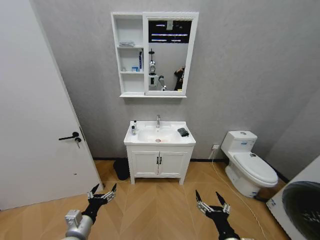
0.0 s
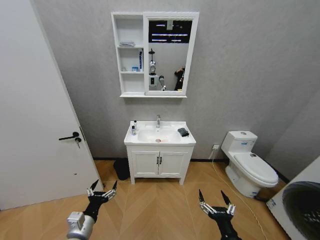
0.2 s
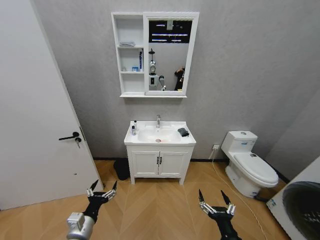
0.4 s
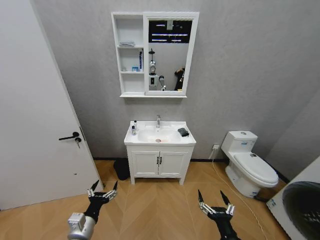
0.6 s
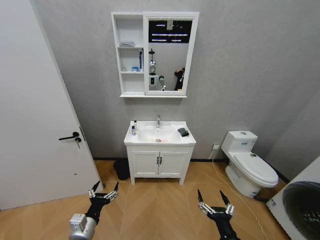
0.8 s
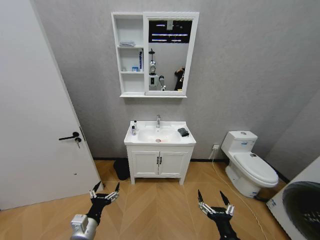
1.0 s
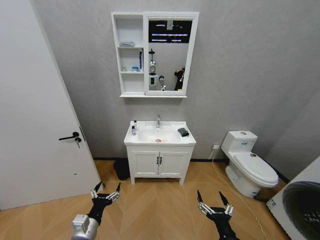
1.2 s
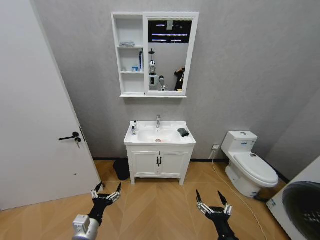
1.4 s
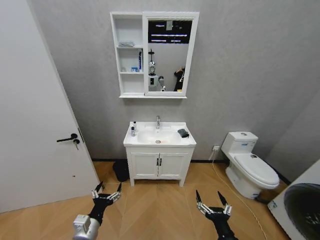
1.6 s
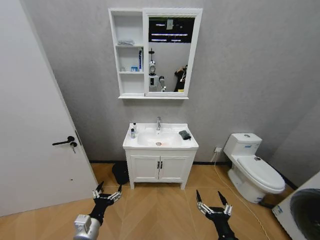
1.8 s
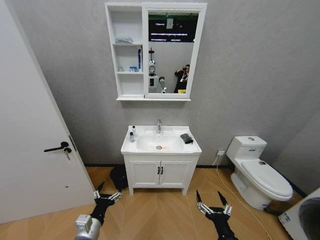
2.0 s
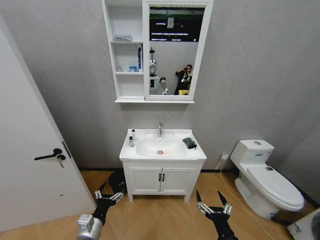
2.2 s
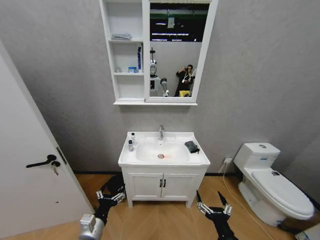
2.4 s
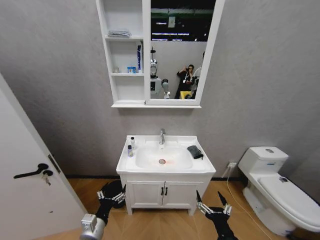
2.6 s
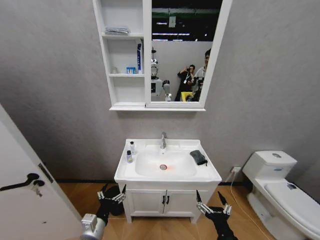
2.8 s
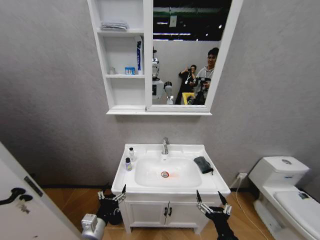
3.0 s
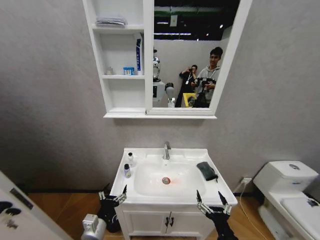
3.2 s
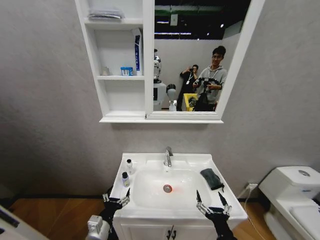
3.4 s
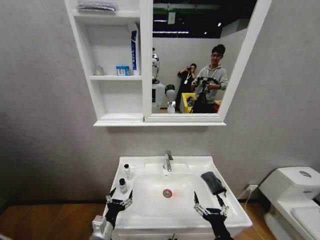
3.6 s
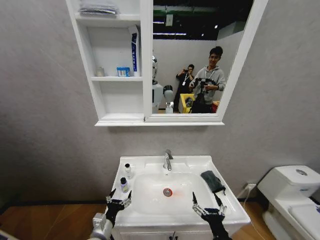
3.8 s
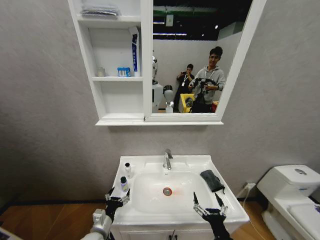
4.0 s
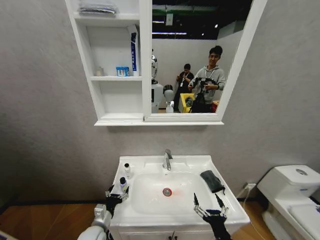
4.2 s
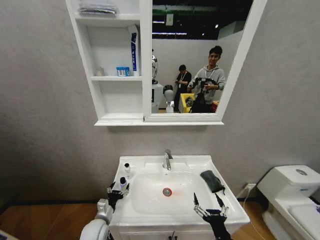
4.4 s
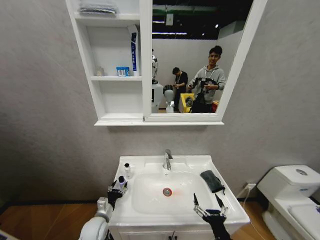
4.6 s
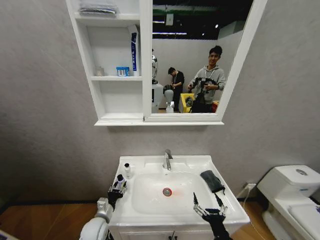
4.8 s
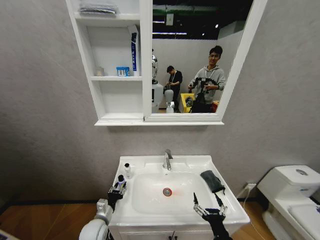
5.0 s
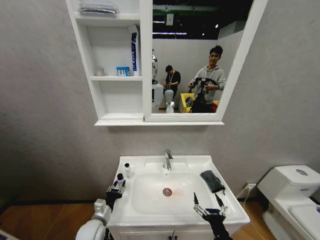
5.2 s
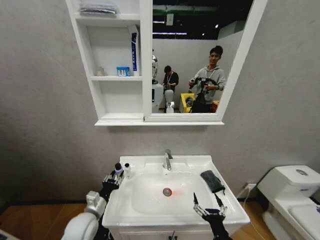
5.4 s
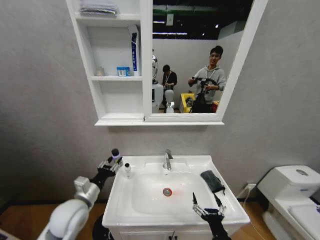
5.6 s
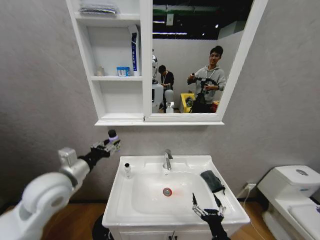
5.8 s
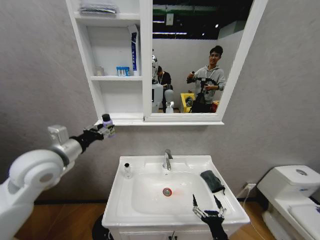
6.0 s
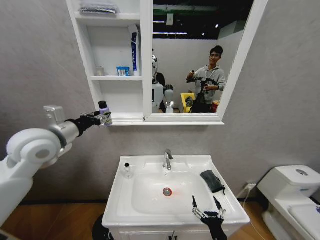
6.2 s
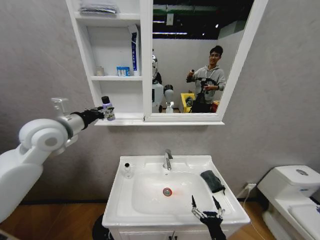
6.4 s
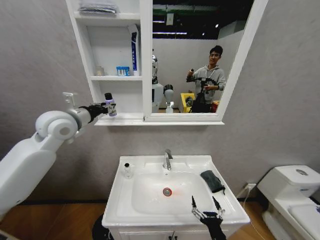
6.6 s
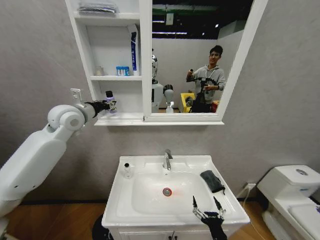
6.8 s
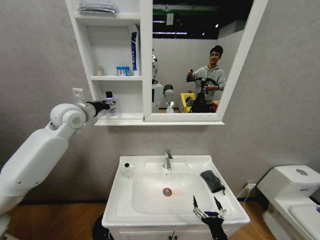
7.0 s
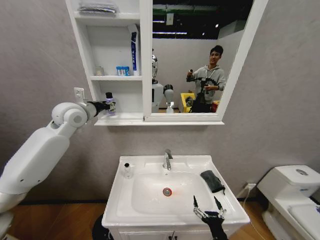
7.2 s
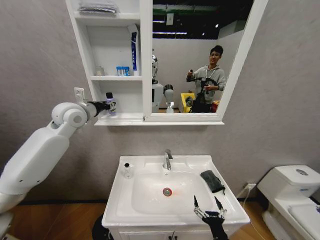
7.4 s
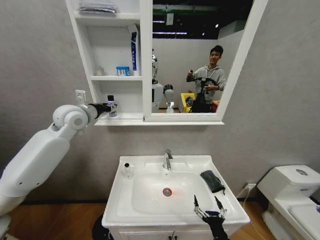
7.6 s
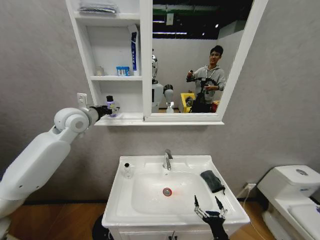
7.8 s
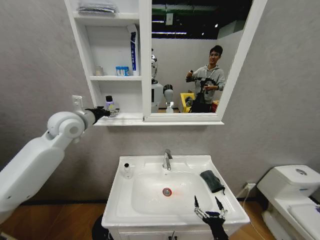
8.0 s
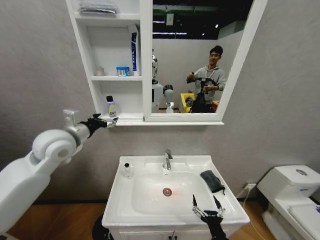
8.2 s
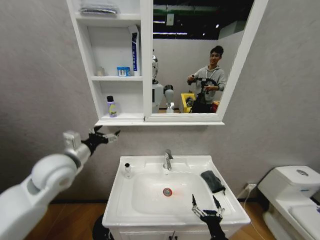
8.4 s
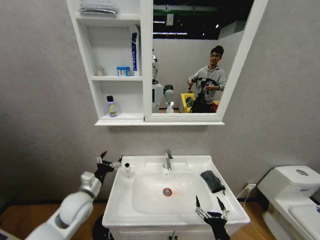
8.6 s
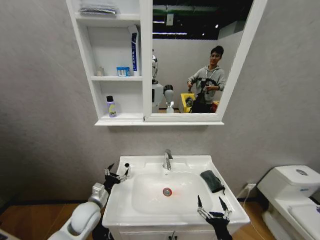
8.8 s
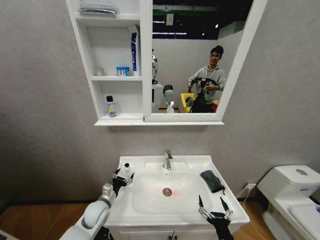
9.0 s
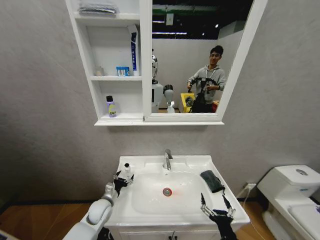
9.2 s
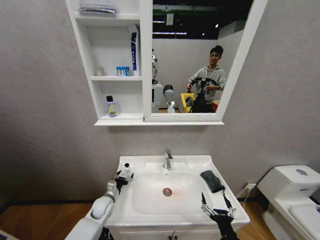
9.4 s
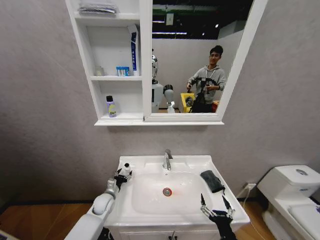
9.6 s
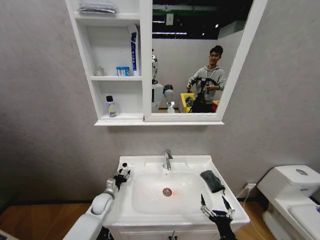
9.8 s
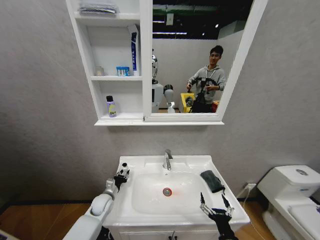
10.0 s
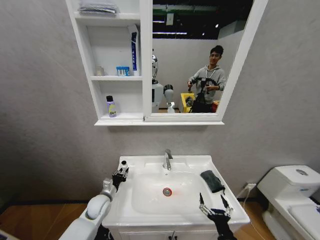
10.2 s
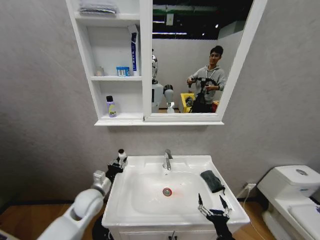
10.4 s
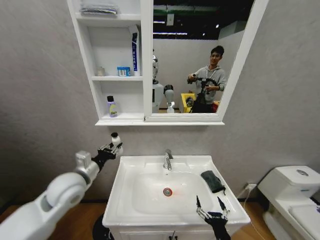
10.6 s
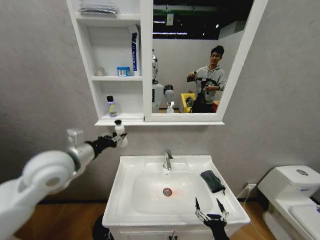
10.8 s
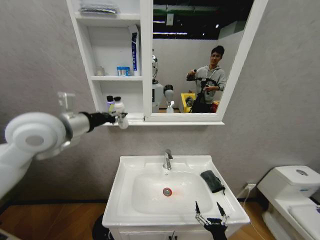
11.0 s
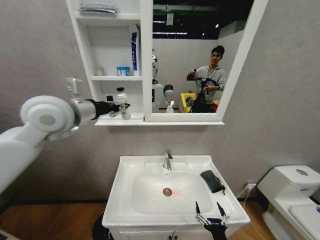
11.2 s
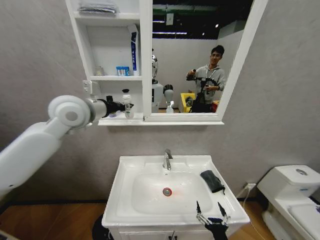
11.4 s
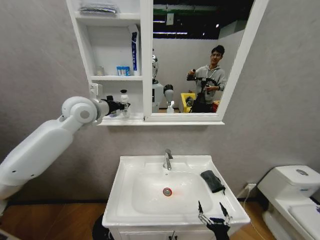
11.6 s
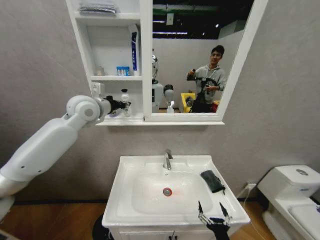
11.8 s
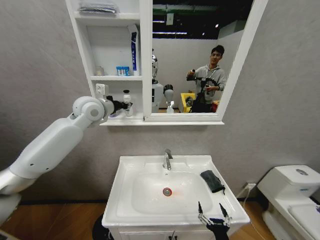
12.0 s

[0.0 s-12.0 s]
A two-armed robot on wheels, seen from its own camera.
Task of the whole recording: Move facial cleanser and shampoo from washbasin to cabinet, then wipe washbasin with towel.
3.0 to 4.4 s: The left gripper goes some 10 cm forward and downward.
4.4 to 6.0 s: The left gripper shifts roughly 35 cm upward, and closes up.
6.0 to 7.6 s: The left gripper moves forward and upward, approximately 15 cm.
7.6 to 9.0 s: The left gripper heads downward, covering roughly 40 cm, and opens up.
9.0 to 10.4 s: The left gripper shifts about 10 cm upward, and closes its fingers.
10.4 to 12.0 s: The left gripper moves upward, roughly 35 cm.

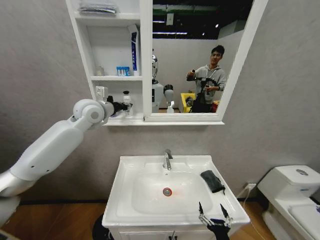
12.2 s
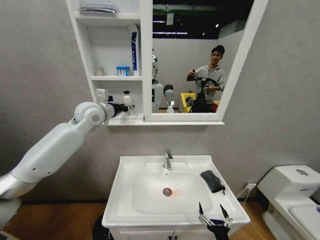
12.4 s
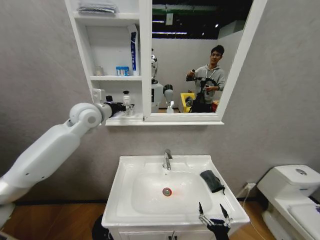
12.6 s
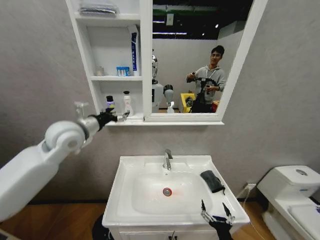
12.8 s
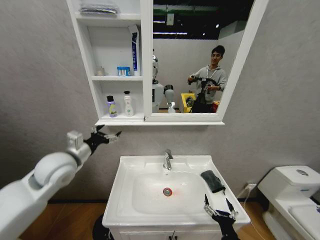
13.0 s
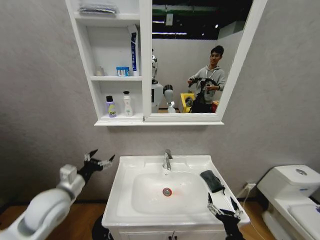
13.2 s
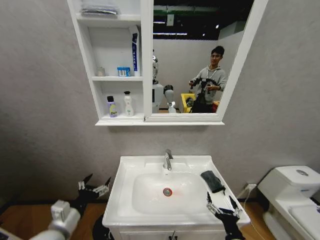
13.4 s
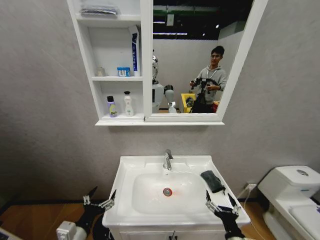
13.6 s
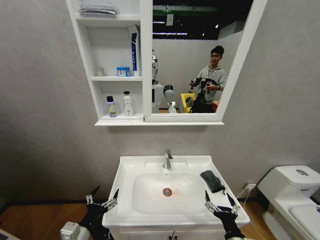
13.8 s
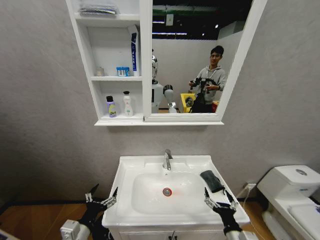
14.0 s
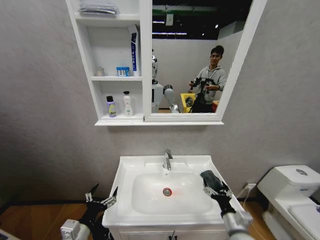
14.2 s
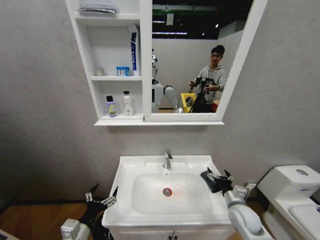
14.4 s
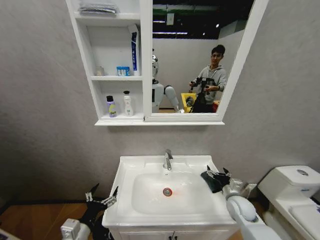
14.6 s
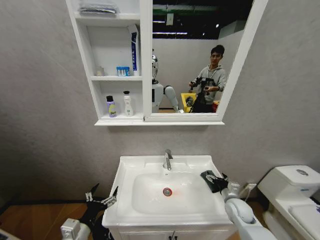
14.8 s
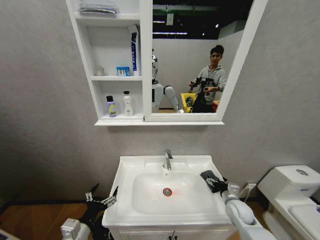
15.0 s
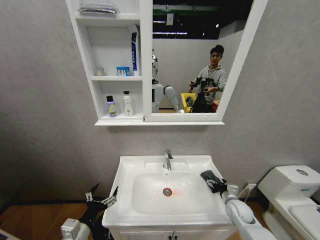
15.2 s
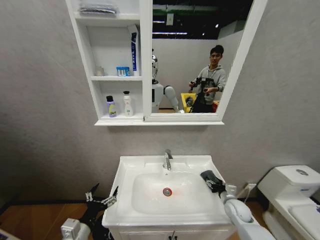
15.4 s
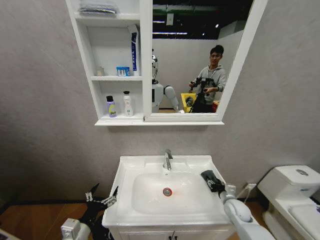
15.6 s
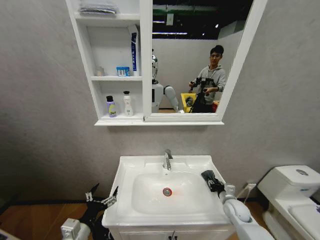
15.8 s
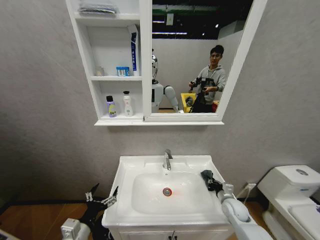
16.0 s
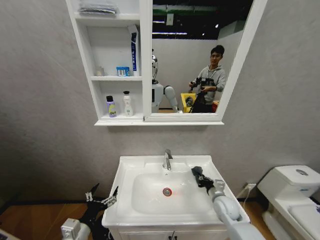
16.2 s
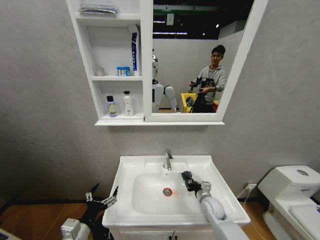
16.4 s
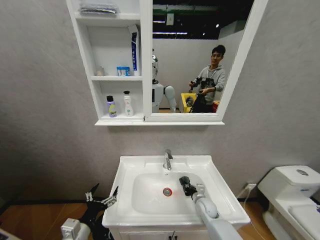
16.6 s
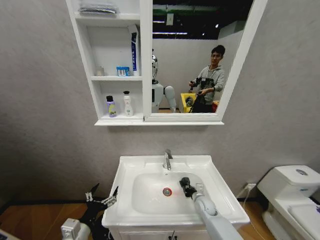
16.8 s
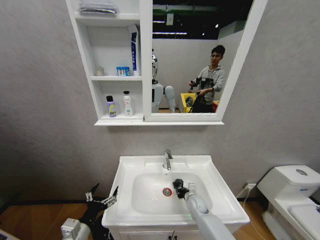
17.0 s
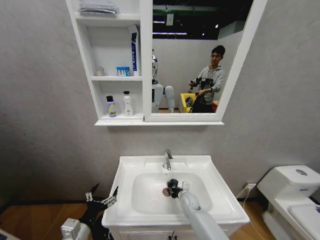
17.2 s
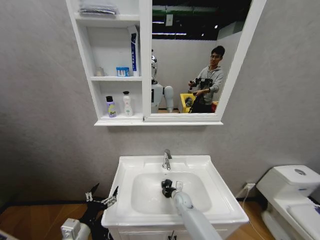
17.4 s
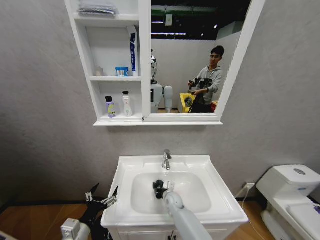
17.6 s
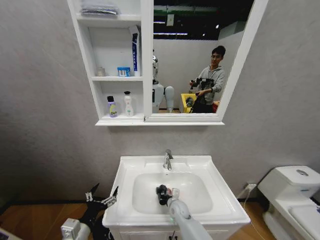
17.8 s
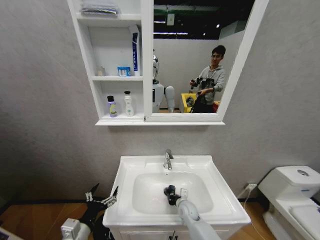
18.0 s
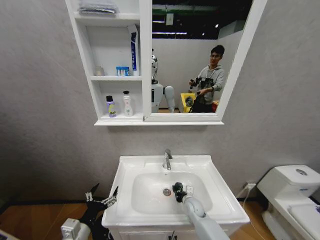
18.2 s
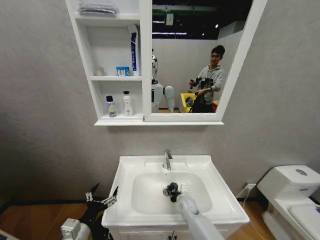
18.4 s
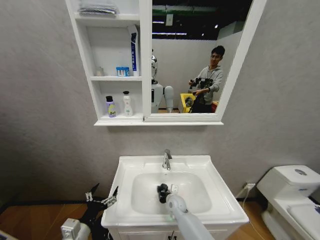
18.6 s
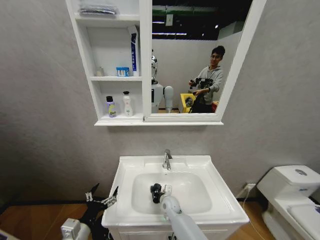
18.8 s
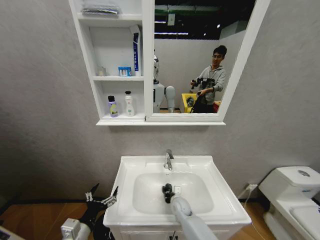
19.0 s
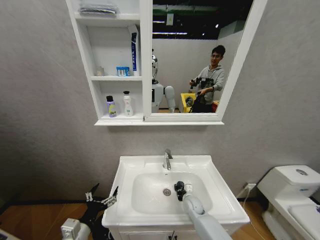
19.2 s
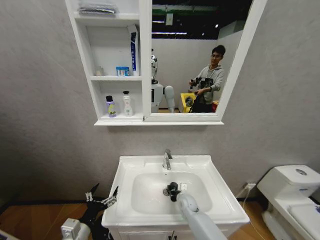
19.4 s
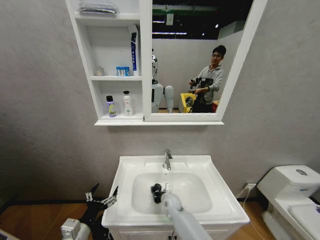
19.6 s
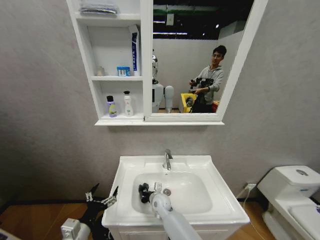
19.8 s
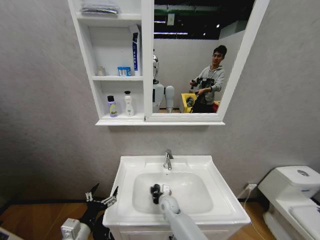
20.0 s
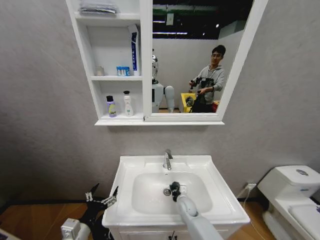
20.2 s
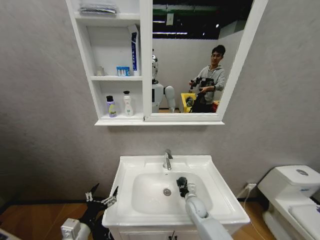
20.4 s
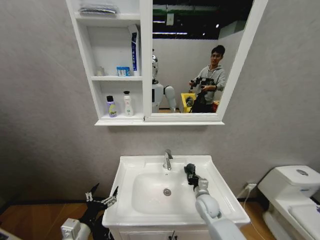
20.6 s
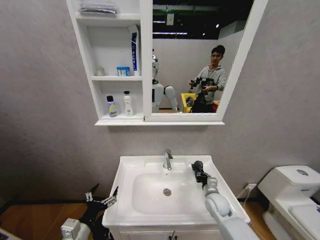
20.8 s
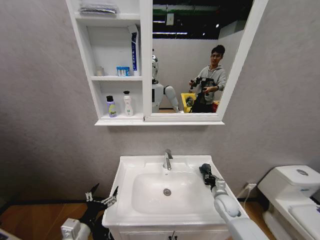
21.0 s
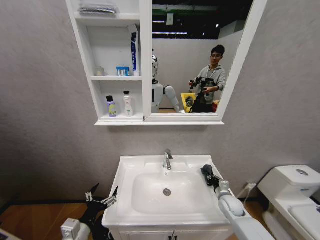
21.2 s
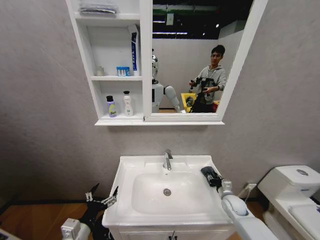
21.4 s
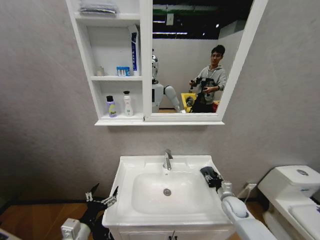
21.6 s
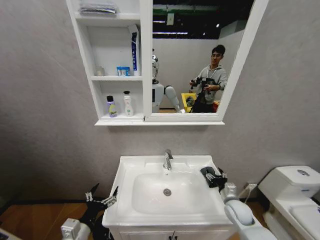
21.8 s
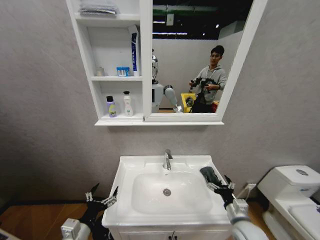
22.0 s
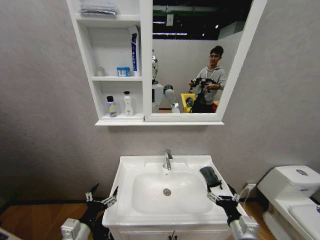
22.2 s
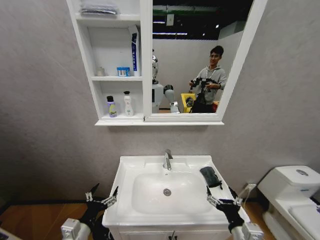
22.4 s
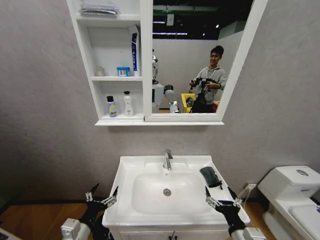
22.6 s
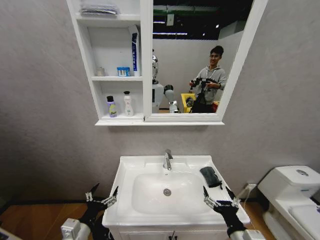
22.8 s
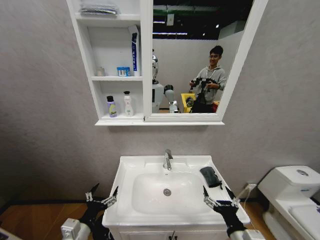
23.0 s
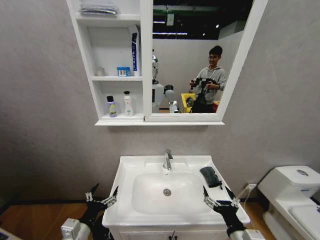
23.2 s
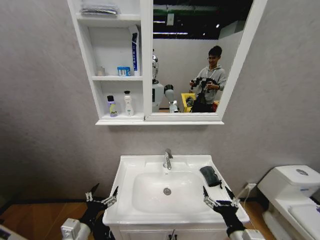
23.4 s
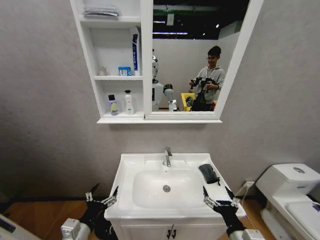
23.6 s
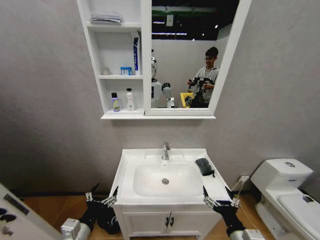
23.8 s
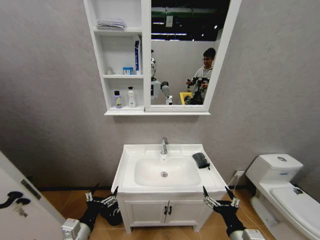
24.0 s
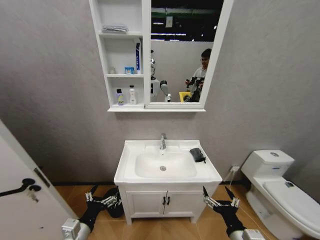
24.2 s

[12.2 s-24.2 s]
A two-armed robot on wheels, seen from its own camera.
Task of the whole recording: Move facial cleanser and shampoo from washbasin to cabinet, then wipe washbasin with towel.
12.2 to 13.8 s: The left gripper moves downward and backward, about 50 cm, and opens, while the right gripper heads upward, covering about 5 cm.
13.8 to 15.2 s: The right gripper travels forward and to the right by roughly 25 cm.
15.2 to 16.6 s: The right gripper shifts approximately 15 cm to the left, and closes.
16.6 to 18.2 s: The right gripper moves some 15 cm to the left and comes back.
18.2 to 19.8 s: The right gripper moves left and right over approximately 15 cm, changing direction 2 times.
19.8 to 21.2 s: The right gripper moves to the right, some 35 cm.
21.2 to 22.6 s: The right gripper is displaced backward, to the left and upward by roughly 30 cm, and opens.
